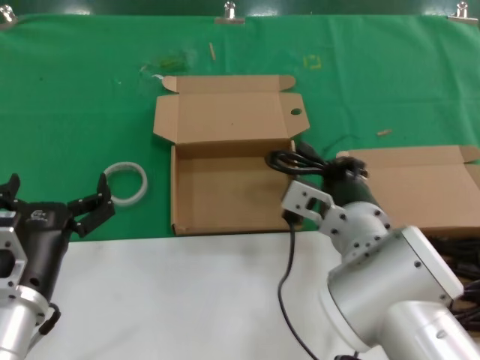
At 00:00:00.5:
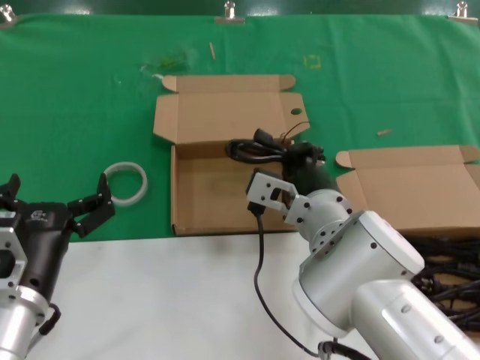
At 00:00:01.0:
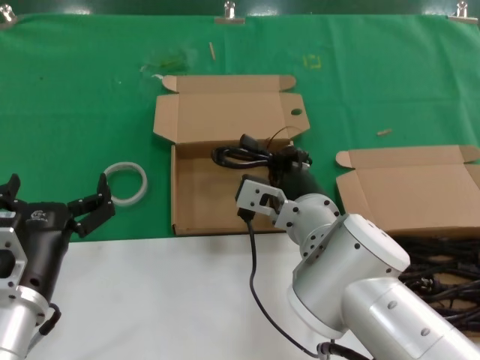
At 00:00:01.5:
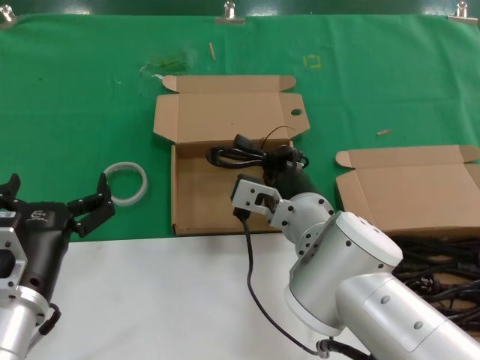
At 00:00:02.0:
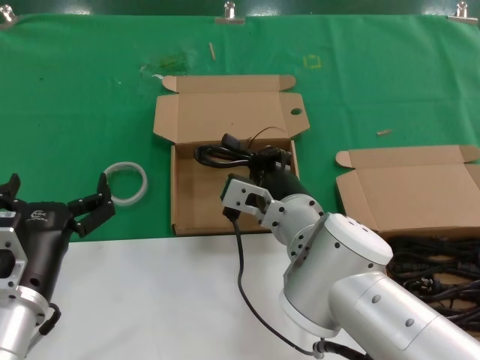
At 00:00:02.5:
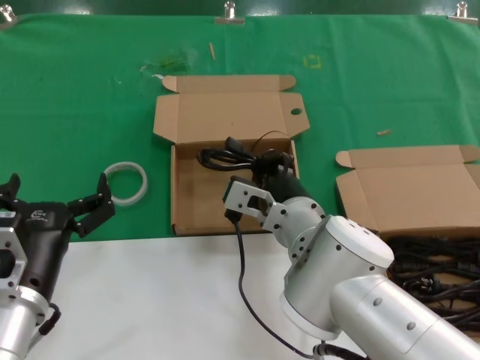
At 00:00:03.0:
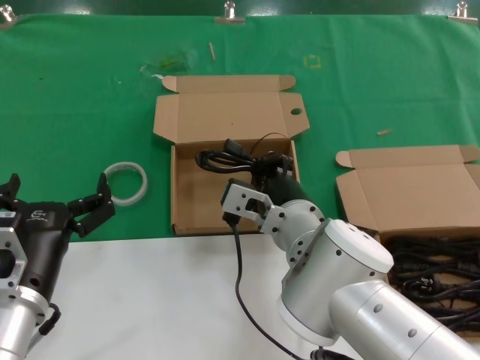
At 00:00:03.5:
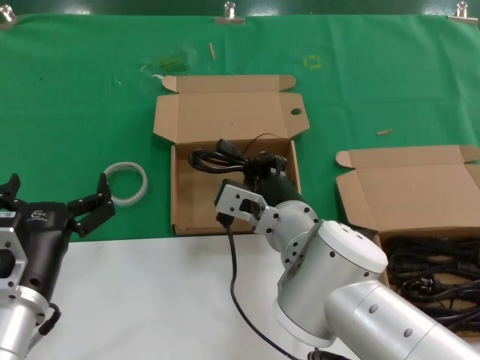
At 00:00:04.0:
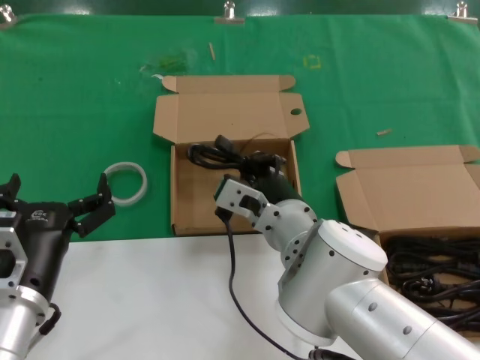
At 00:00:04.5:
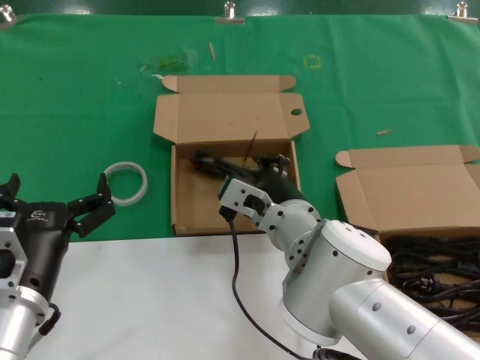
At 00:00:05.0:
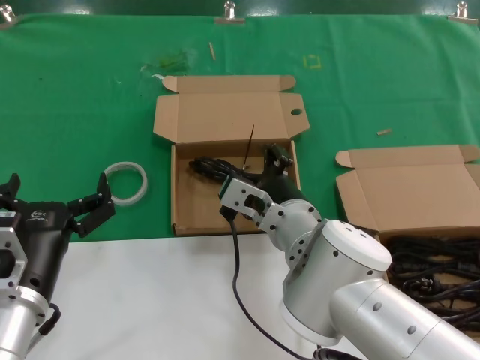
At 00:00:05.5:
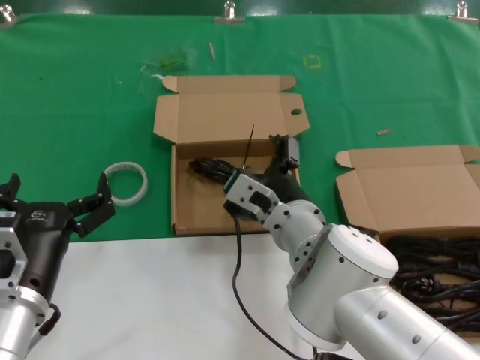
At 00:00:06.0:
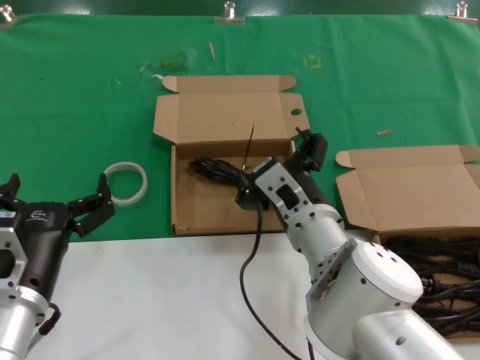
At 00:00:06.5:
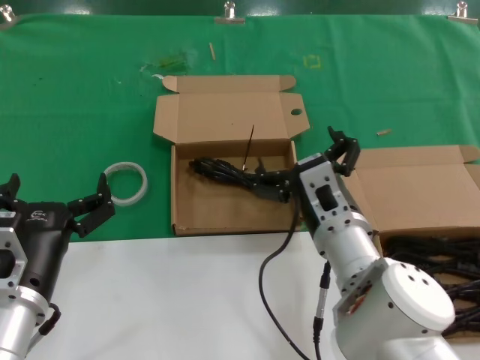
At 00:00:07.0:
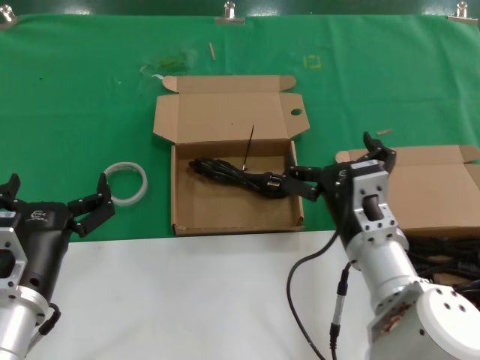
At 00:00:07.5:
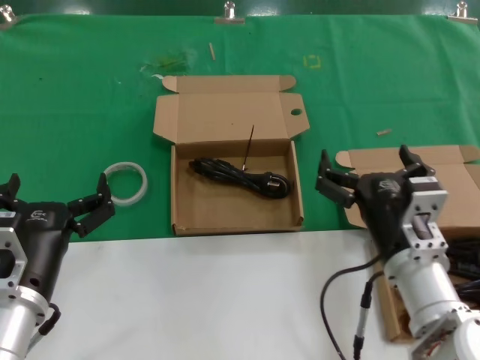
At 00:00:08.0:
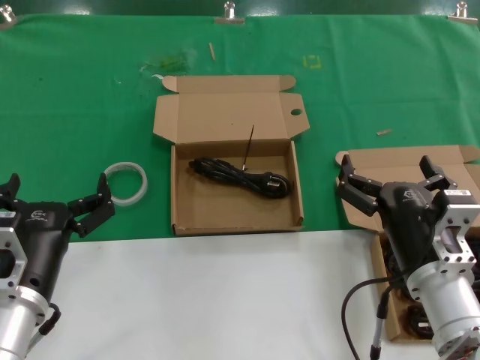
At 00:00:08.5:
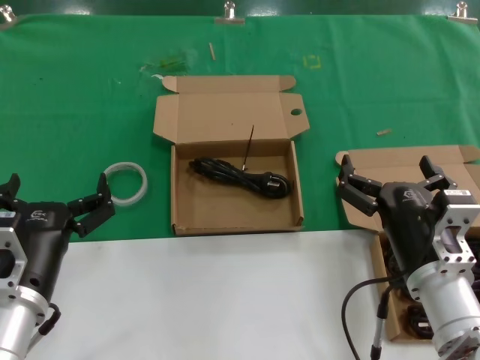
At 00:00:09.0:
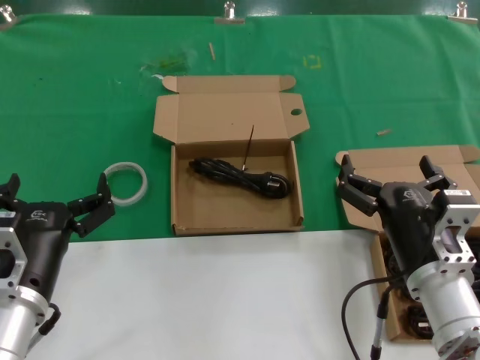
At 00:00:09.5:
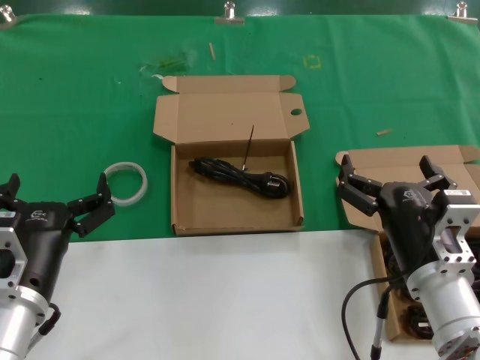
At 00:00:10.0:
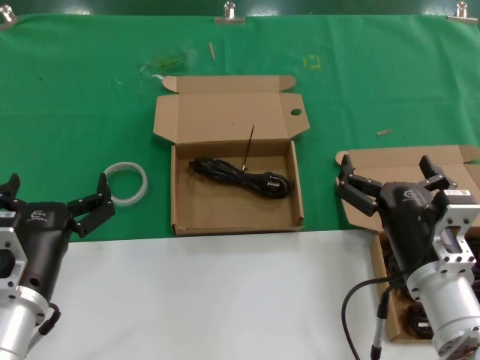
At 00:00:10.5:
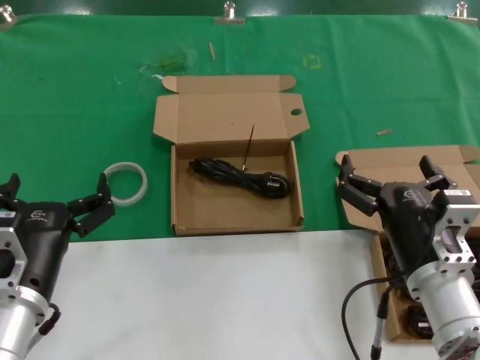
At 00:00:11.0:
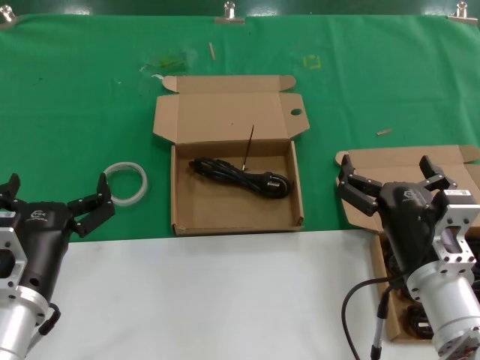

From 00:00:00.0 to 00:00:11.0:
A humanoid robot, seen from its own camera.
Task of the whole recording: take the parts from the box containing them and put them into an empty box.
Step, from 00:00:00.0 to 00:00:04.5: Place the data cable in the another box.
From 00:00:00.0 to 00:00:02.0: The right hand shifts some 5 cm to the left.
From 00:00:02.0 to 00:00:03.5: Neither hand changes place.
From 00:00:03.5 to 00:00:05.5: The hands move only a little.
From 00:00:05.5 to 00:00:07.5: The right hand heads to the right and backward, covering approximately 15 cm.
From 00:00:07.5 to 00:00:09.0: The hands stay close to where they were, moving slightly.
From 00:00:09.0 to 00:00:11.0: The two hands keep their place.
